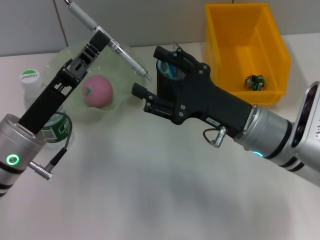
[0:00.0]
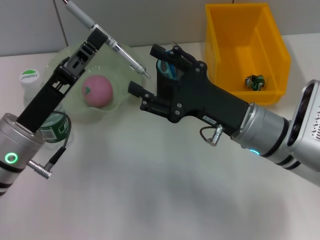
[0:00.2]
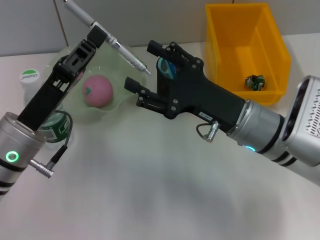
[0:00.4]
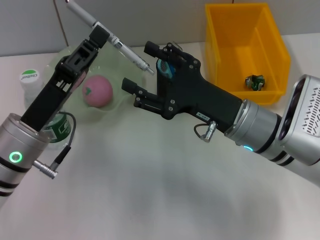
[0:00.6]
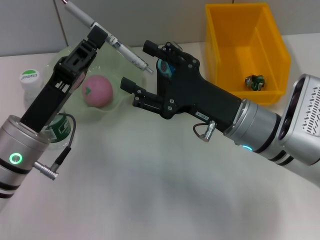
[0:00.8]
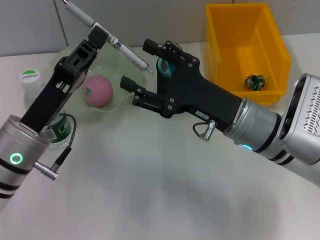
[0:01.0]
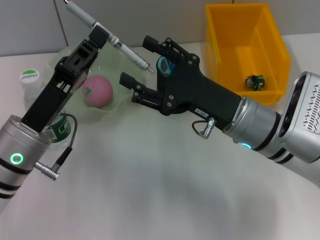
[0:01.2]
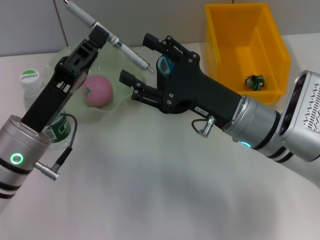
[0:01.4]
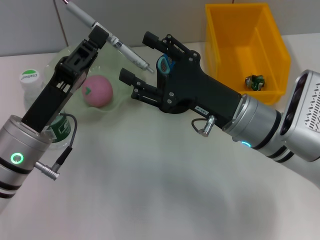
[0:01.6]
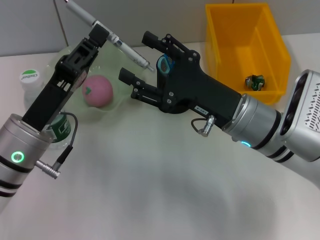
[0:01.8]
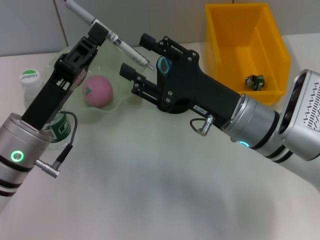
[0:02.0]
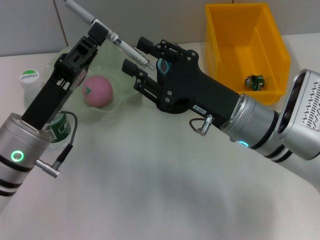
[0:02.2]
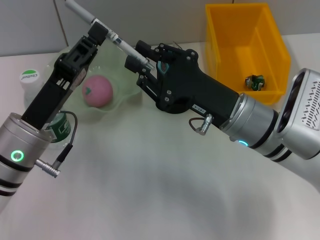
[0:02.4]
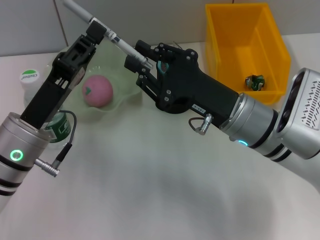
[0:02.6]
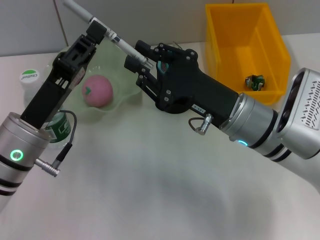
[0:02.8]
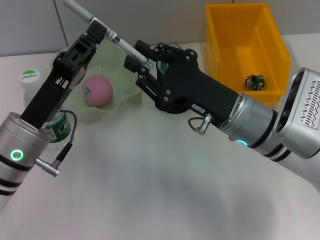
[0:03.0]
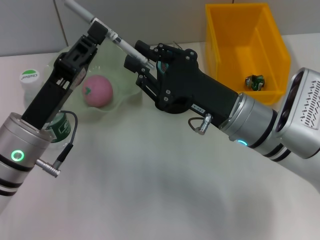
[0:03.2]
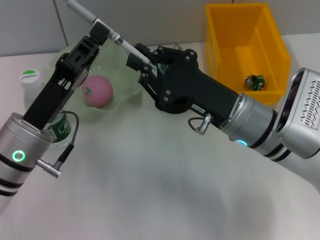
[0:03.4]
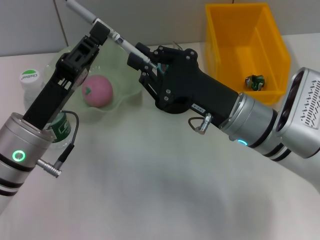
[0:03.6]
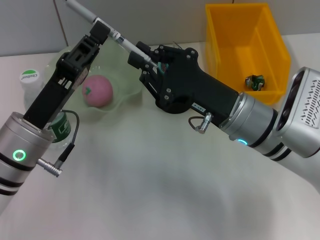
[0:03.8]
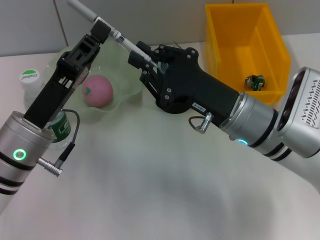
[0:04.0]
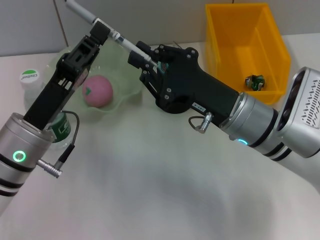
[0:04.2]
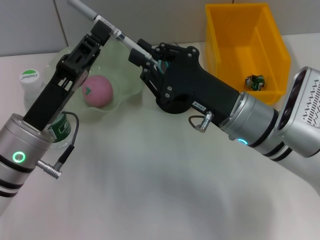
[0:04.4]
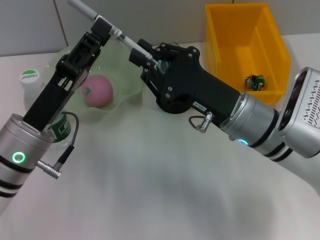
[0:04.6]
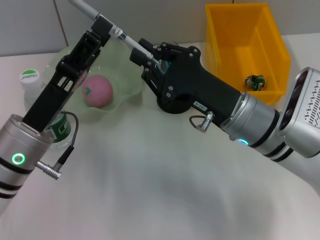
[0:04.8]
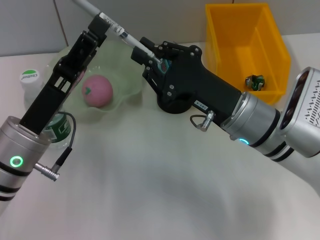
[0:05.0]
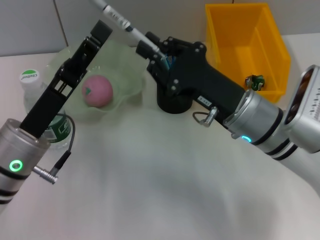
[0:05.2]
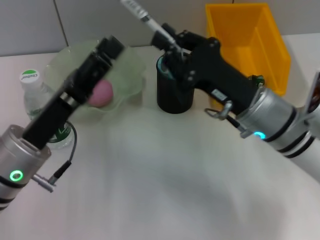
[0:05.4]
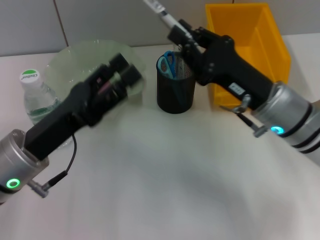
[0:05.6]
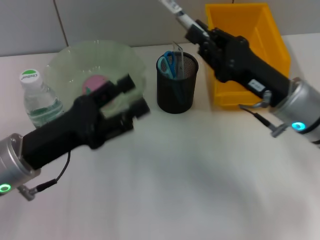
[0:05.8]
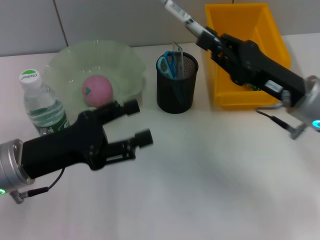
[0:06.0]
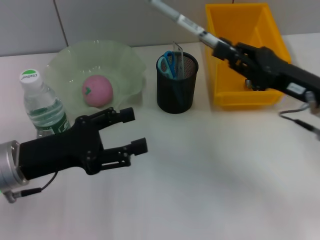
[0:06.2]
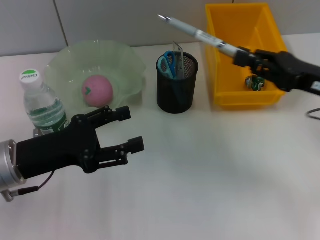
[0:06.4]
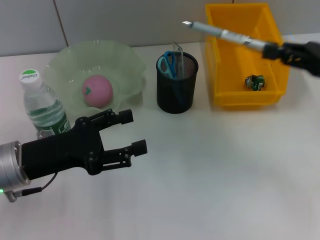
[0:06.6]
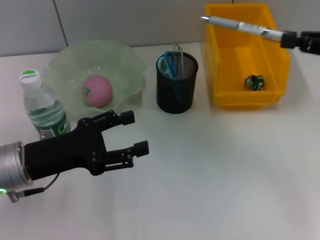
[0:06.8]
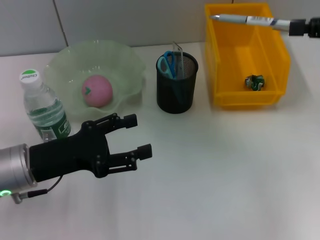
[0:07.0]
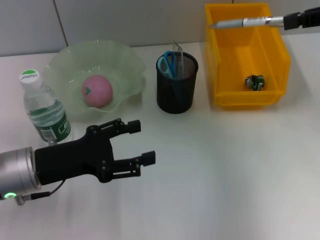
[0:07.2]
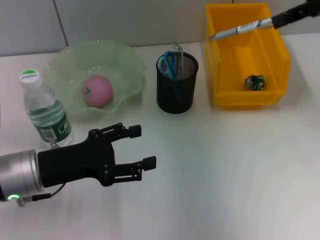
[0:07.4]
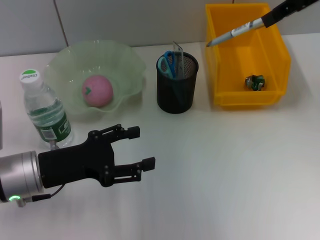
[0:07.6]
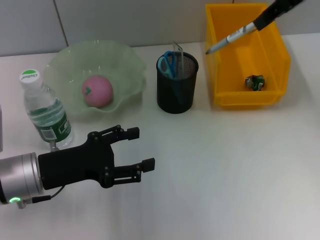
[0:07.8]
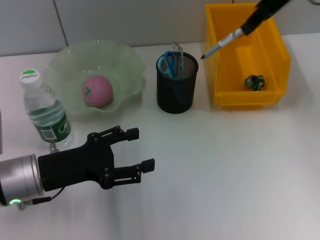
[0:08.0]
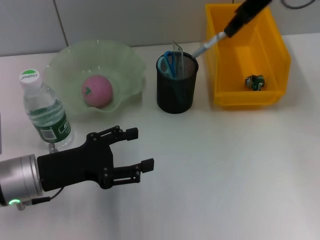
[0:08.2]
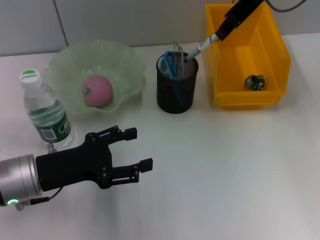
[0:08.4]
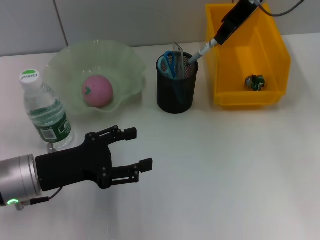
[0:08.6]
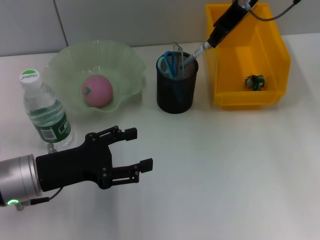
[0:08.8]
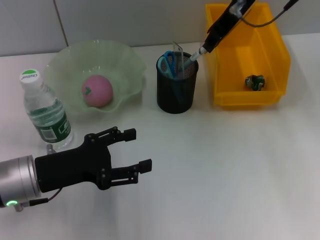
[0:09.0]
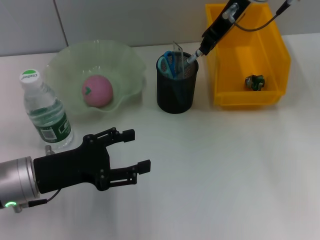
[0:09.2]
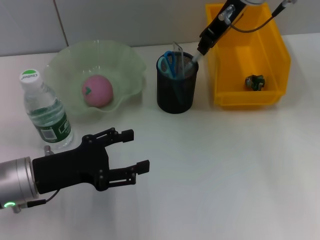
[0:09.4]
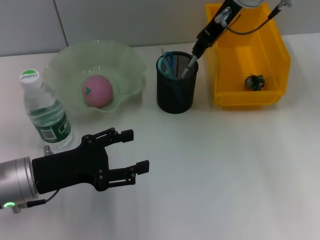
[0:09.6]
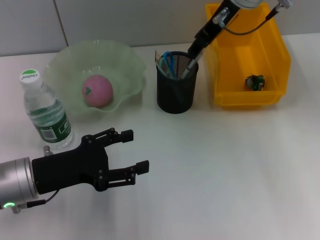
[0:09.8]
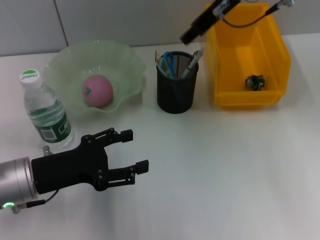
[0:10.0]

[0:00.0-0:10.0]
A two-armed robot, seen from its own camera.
Step, 0:00.0 to 0:05.0: Pass the gray spring-action pen from the left hand to the right hand.
Step, 0:05.2 to 0:09.8: Place the gray spring-action pen into the pen holder with the right hand.
0:00.0 to 0:01.4: There are only small adjustments of the grippers.
0:01.4 to 0:02.8: The right gripper closes its fingers.
0:02.8 to 0:04.2: Both grippers stay about where they are.
0:04.2 to 0:05.8: The right gripper goes some 5 cm to the right. The left gripper opens up.
0:05.8 to 0:07.2: The right gripper travels upward and to the right by about 20 cm.
0:07.2 to 0:08.6: The right gripper travels to the left and forward by about 20 cm.
0:08.6 to 0:10.0: The right gripper opens.

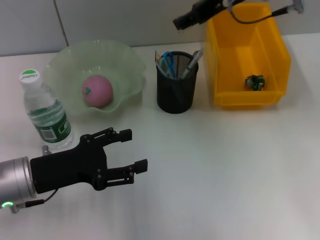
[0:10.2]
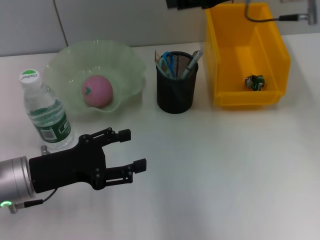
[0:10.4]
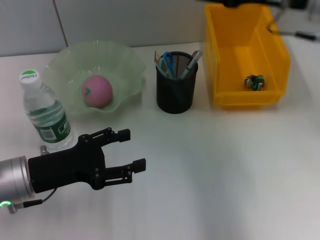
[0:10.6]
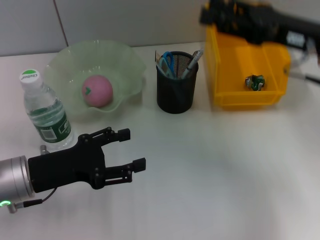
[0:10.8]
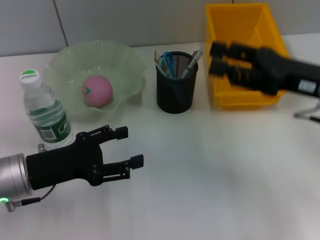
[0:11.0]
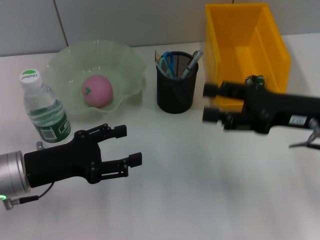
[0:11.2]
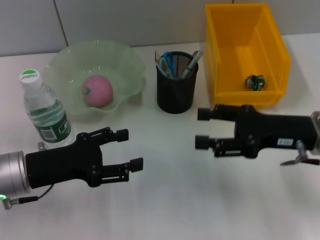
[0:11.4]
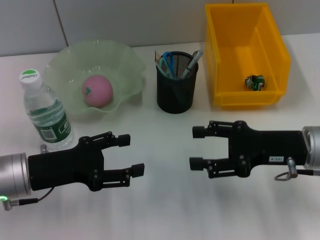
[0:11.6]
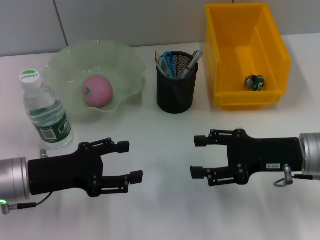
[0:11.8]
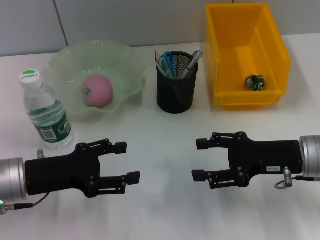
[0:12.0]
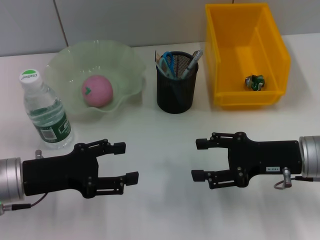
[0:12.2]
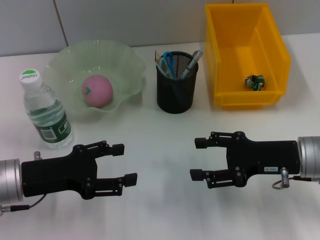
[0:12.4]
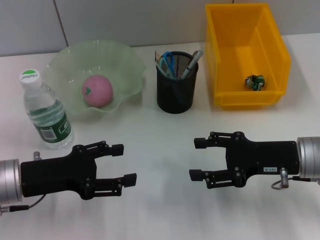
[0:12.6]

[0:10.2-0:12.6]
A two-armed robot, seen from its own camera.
0:10.2 to 0:11.4: The right gripper goes about 25 cm downward, backward and to the right.
0:11.4 to 0:12.6: There are only small adjustments of the grippers.

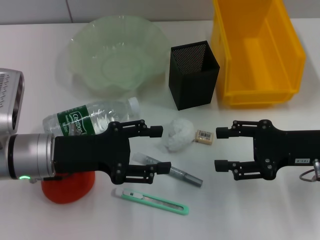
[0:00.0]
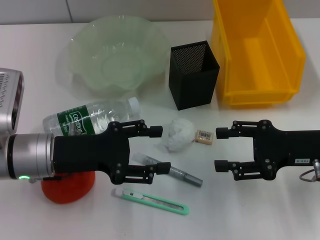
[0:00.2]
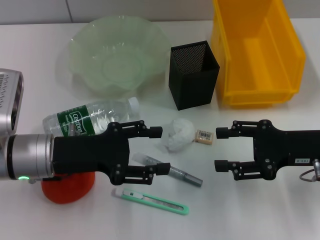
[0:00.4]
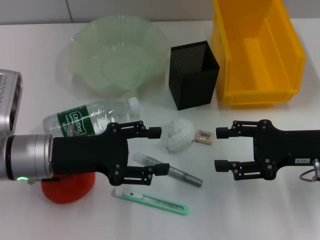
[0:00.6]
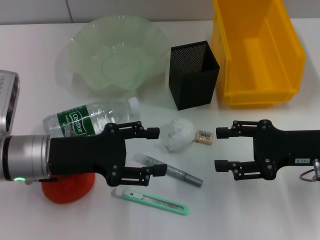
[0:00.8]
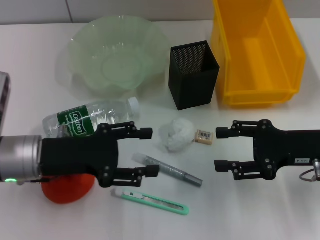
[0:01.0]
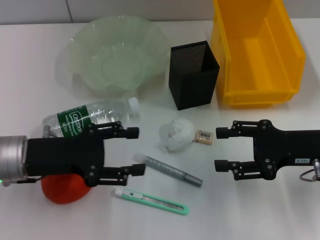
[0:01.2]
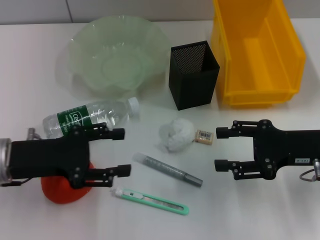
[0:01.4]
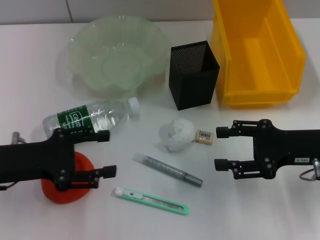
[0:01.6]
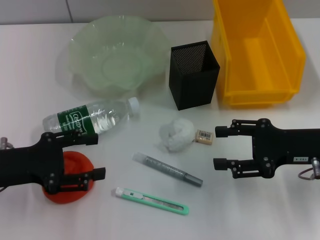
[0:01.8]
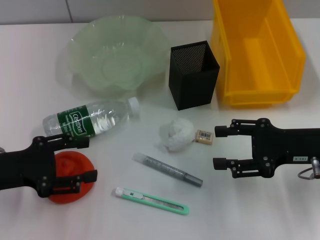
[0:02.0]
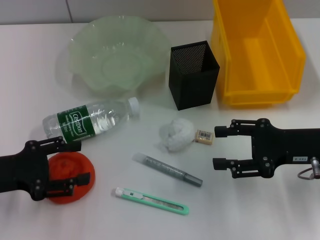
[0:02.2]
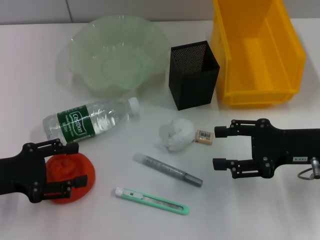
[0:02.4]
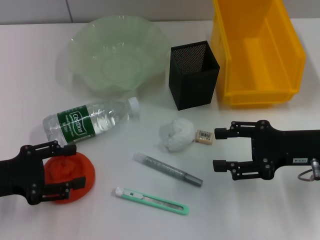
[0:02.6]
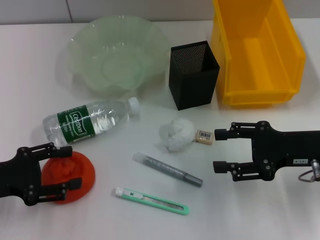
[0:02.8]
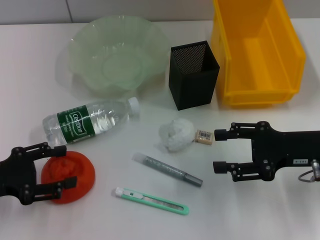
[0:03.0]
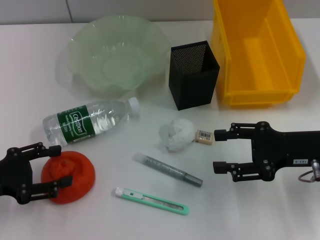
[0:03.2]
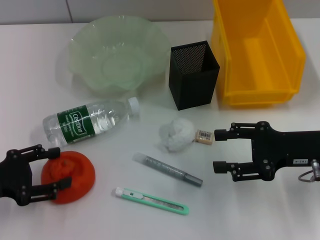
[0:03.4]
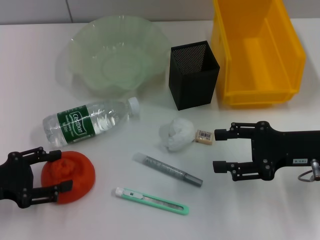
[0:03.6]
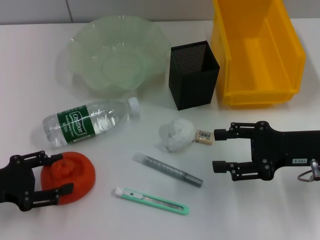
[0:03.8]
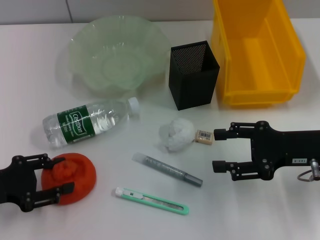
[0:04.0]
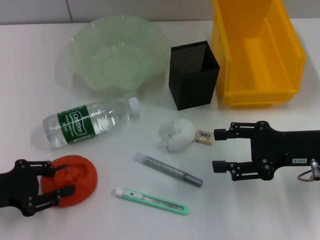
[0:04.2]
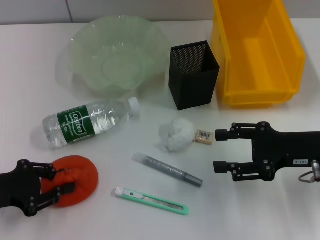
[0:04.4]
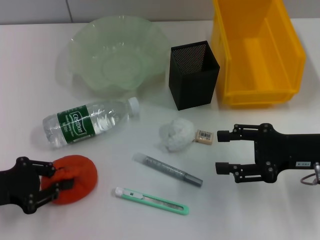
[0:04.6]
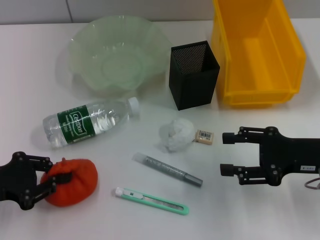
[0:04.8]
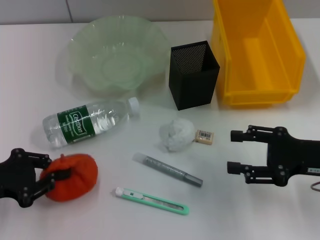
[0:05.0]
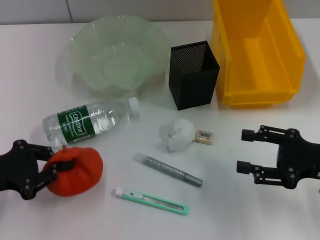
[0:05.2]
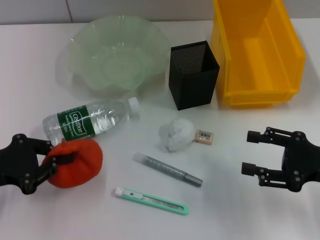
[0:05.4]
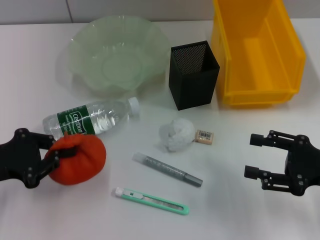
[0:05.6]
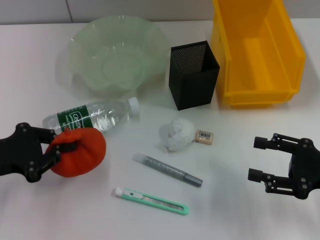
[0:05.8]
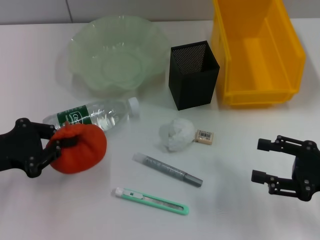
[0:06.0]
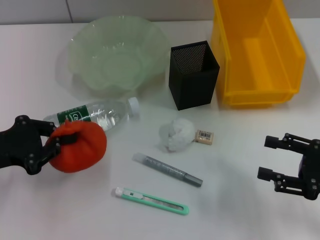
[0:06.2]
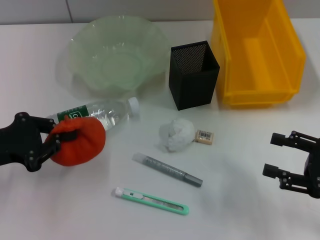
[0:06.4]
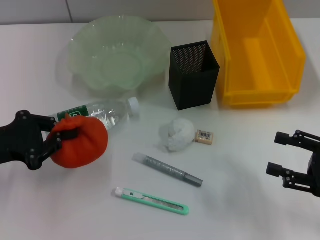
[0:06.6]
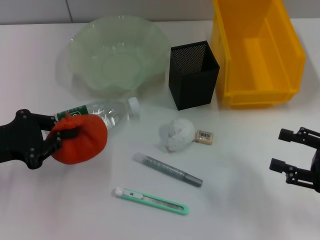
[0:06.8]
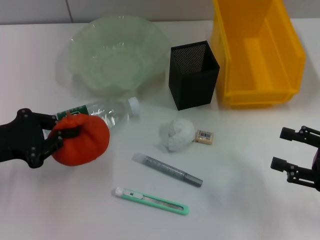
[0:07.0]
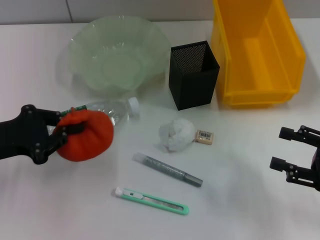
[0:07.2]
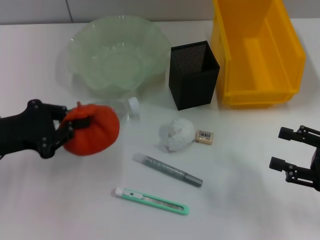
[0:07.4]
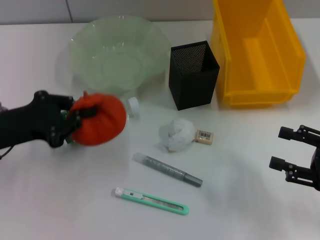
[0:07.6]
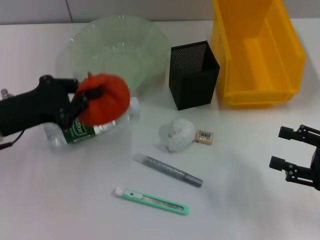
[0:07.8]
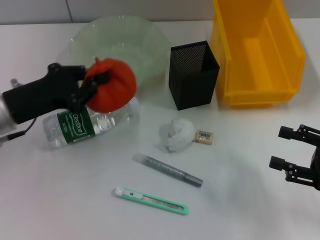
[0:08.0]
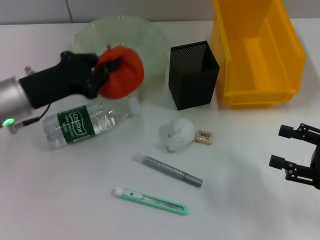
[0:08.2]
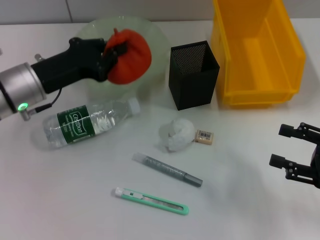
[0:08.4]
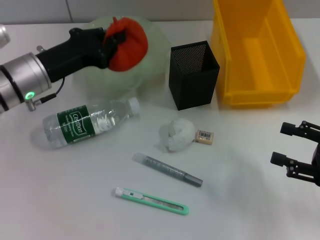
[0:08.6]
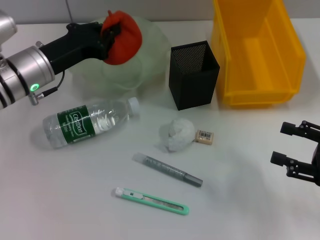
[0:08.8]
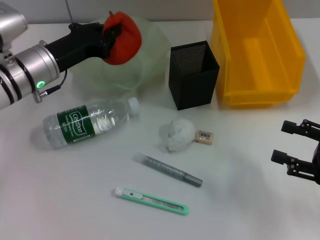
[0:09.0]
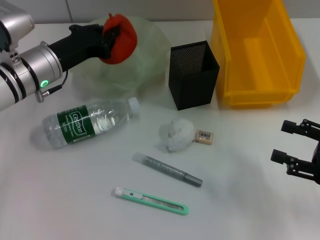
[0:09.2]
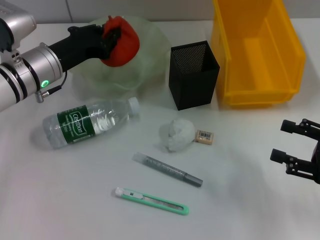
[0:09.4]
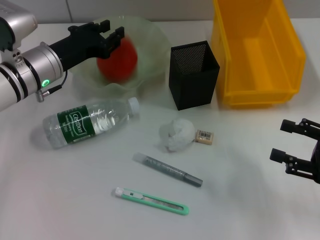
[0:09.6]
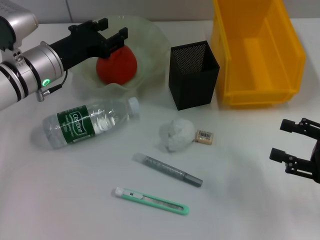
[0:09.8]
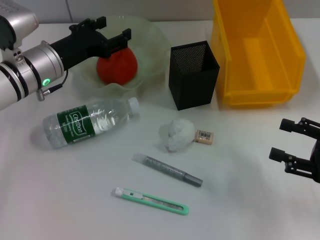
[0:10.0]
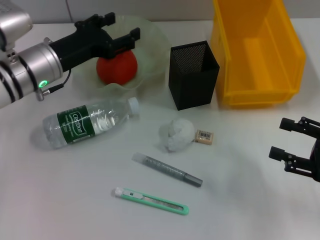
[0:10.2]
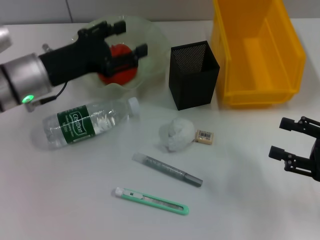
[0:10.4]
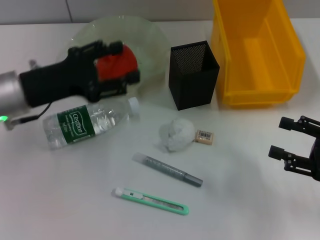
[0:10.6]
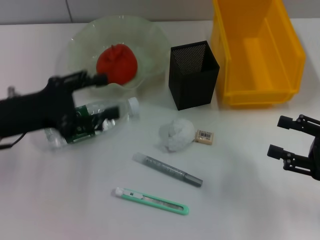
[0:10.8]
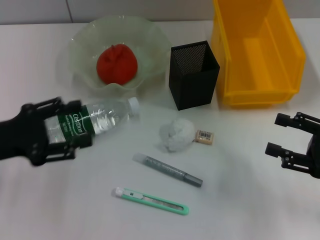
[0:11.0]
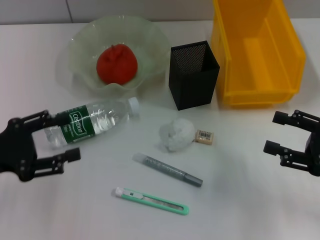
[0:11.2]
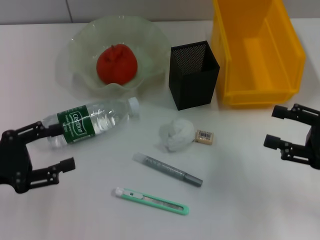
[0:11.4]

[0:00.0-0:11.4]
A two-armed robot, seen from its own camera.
Step, 0:00.0 to 0:04.4: Grab the orange with the left hand.
Step, 0:04.6 to 0:09.8: Place the orange into the fruit bowl with the left hand.
0:00.0 to 0:01.4: The left gripper moves to the left, about 5 cm.
0:01.4 to 0:02.8: The left gripper is displaced to the left by approximately 5 cm.
0:02.8 to 0:04.2: There are only small adjustments of the grippers.
0:04.2 to 0:05.6: The left gripper closes its fingers; the right gripper is displaced backward by roughly 5 cm.
0:05.6 to 0:07.2: The grippers make only small movements.
0:07.2 to 0:08.6: The left gripper travels forward and to the right by about 15 cm.
0:08.6 to 0:10.0: The left gripper opens its fingers.
0:10.0 to 0:11.4: The left gripper shifts approximately 20 cm backward and to the left.
